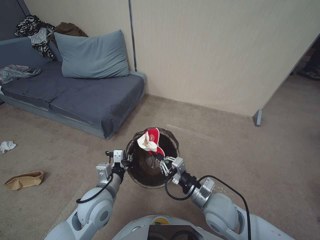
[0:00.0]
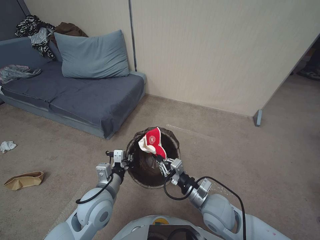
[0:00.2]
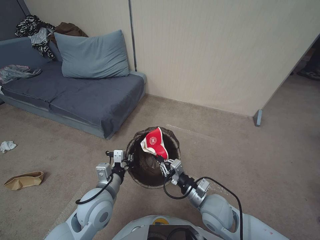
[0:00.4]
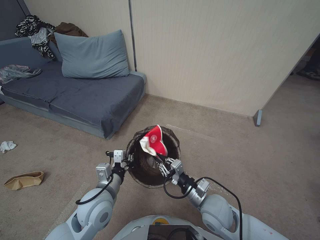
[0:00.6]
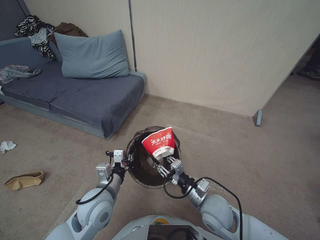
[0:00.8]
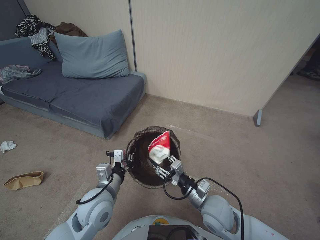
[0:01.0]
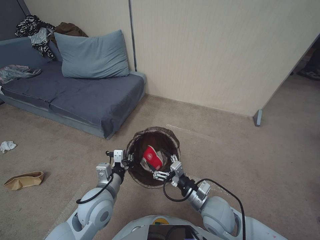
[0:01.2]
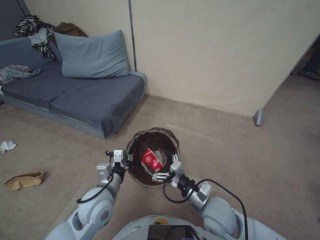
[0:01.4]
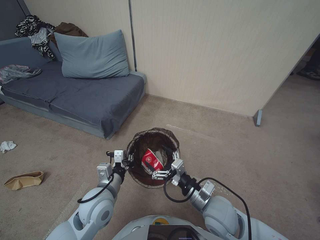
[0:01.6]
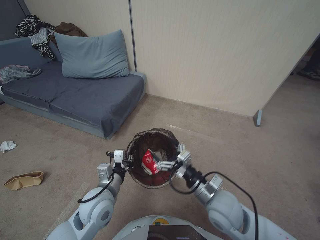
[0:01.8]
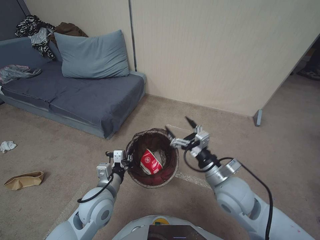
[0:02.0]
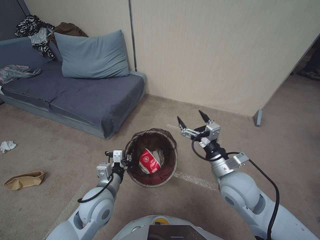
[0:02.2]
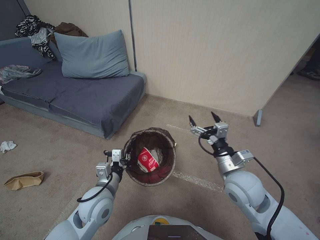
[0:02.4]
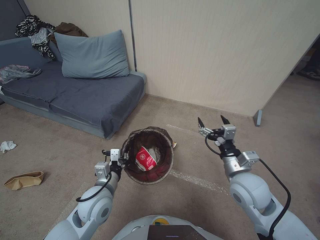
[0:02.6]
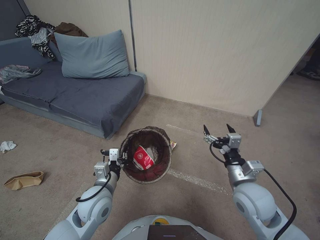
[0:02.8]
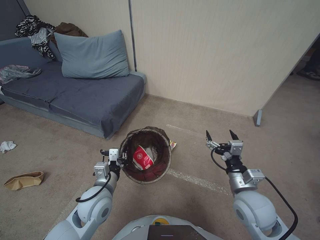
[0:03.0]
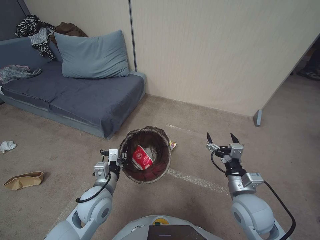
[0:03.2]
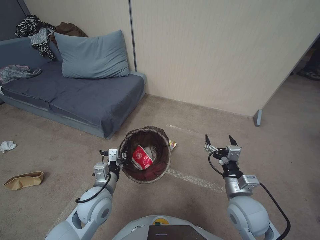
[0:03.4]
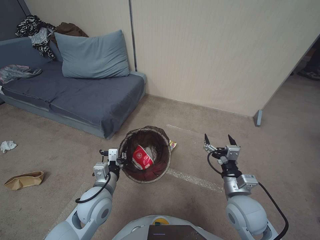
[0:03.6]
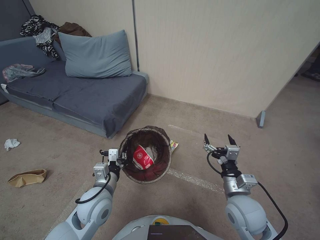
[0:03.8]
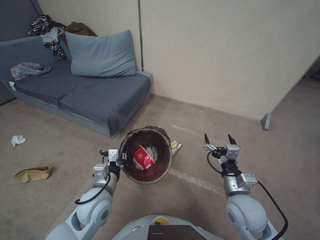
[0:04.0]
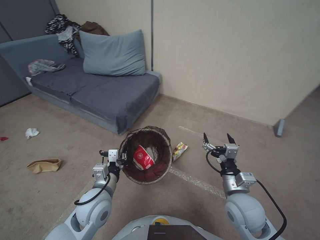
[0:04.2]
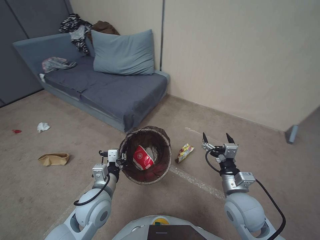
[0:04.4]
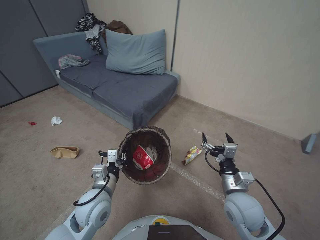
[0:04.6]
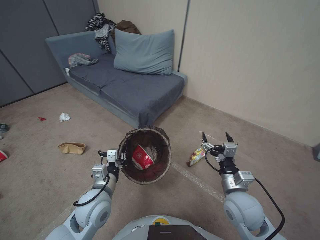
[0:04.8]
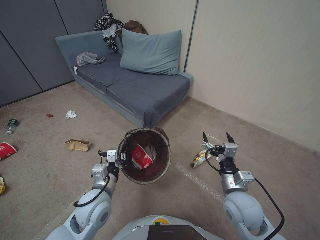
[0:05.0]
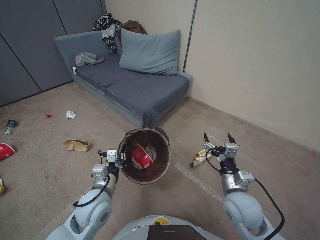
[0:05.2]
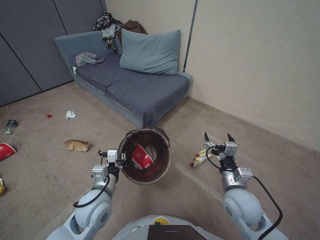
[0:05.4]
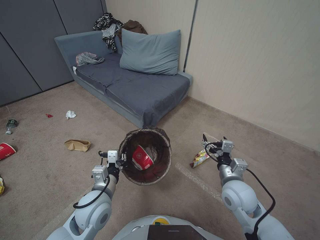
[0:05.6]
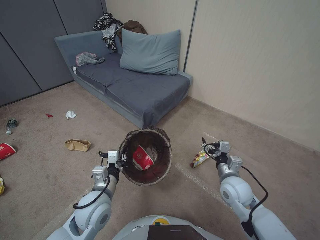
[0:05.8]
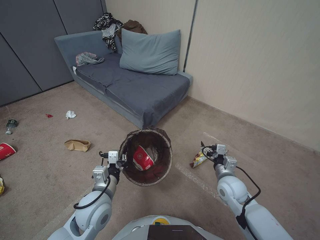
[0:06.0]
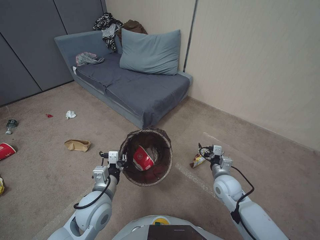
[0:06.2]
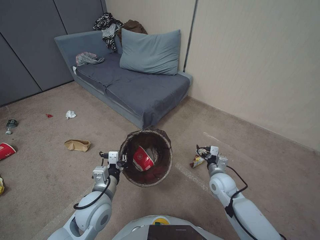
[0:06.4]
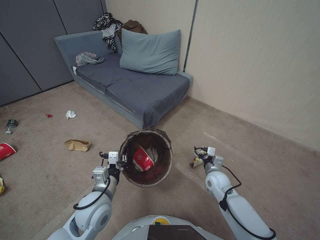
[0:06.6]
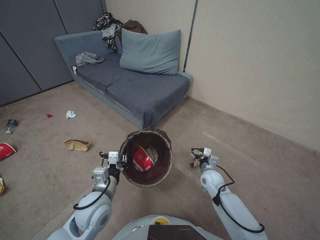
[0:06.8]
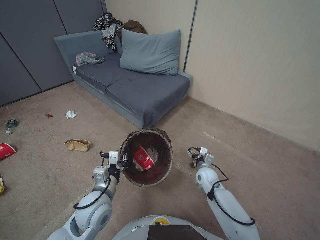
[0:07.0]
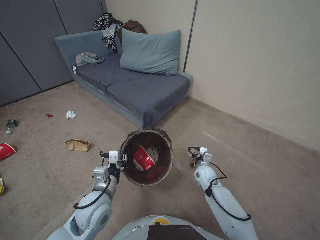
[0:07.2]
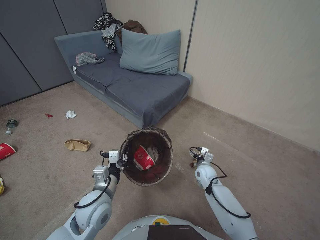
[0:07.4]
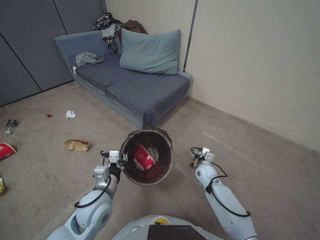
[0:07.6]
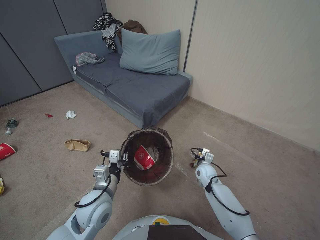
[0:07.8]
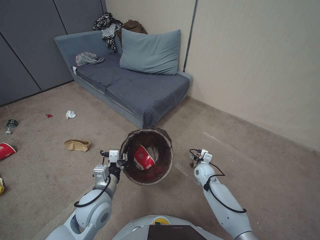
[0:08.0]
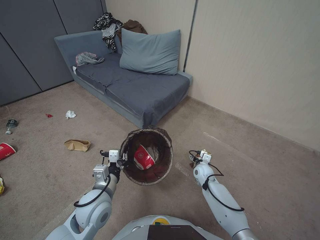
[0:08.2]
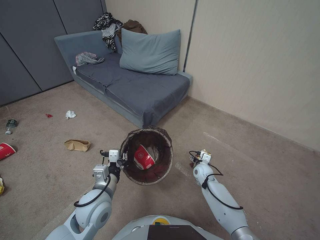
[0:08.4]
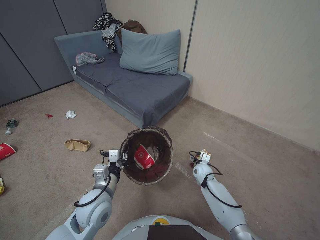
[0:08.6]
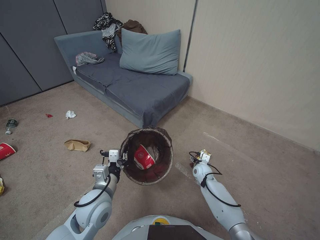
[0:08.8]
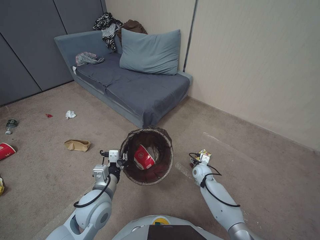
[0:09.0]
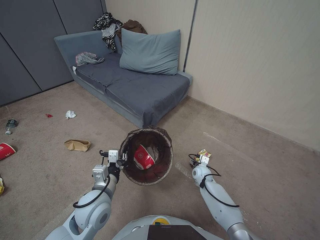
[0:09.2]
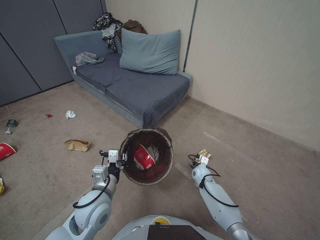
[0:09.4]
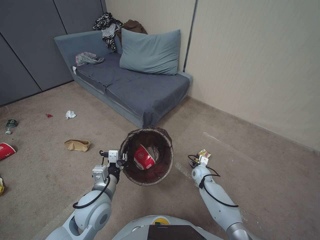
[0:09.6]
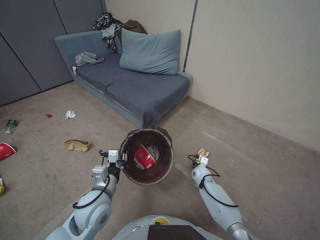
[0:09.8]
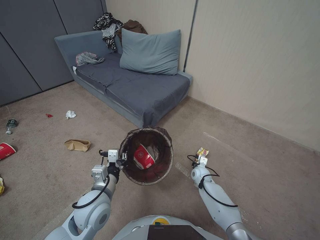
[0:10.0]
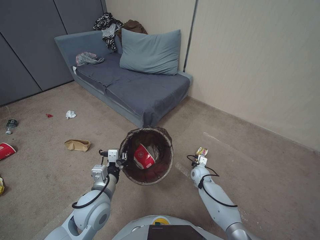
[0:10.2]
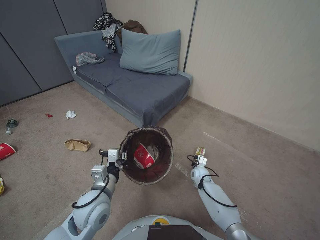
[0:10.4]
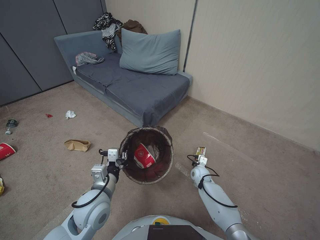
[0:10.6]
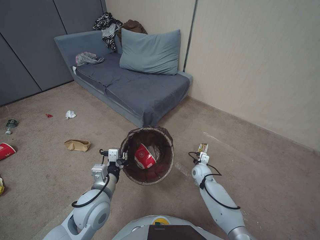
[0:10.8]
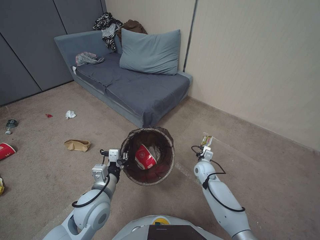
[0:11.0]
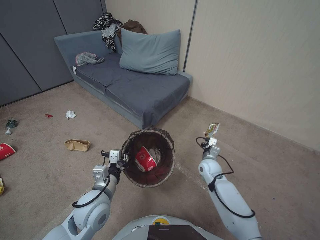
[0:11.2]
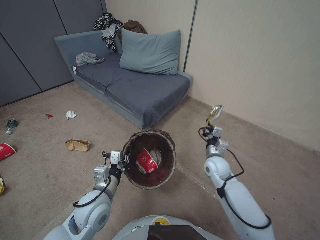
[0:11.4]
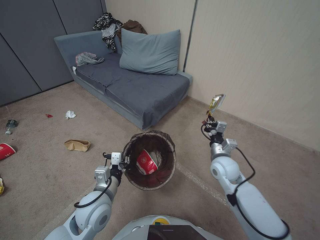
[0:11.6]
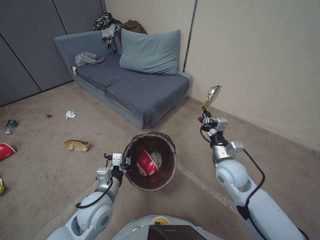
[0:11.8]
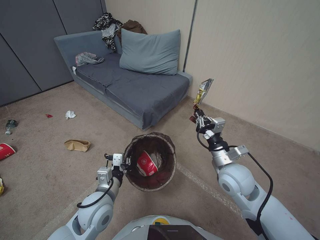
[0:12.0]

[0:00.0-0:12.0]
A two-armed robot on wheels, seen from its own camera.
Task of the whole recording: Pick up the trash bin, then pick up the garbage from the floor and place it into the trash bin.
0:00.0 to 0:01.6: The right gripper opens.
0:01.6 to 0:03.0: The right gripper shifts approximately 10 cm to the right and upward.
0:04.4 to 0:06.0: The right gripper is displaced forward by about 5 cm.
0:06.0 to 0:07.6: The right gripper shifts approximately 15 cm downward and forward.
0:07.6 to 0:09.0: The right gripper moves about 5 cm.
0:09.0 to 0:10.4: The right gripper closes.
0:10.4 to 0:12.0: The right gripper moves upward, roughly 25 cm.

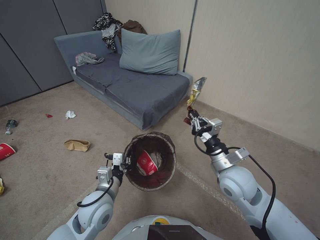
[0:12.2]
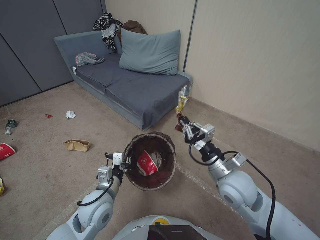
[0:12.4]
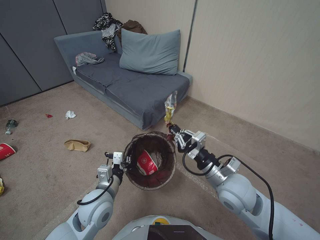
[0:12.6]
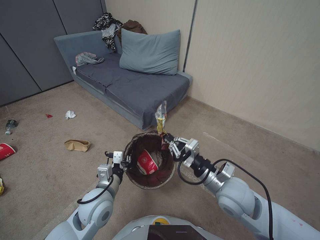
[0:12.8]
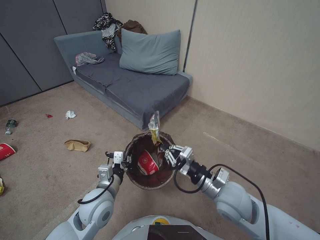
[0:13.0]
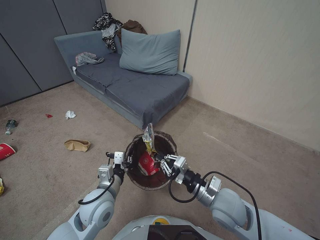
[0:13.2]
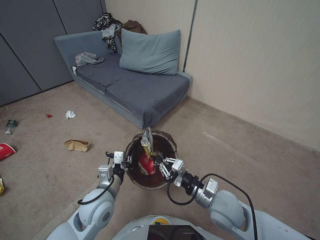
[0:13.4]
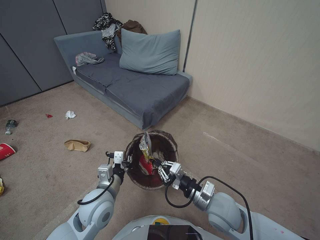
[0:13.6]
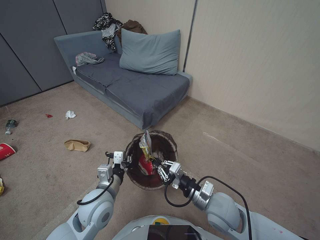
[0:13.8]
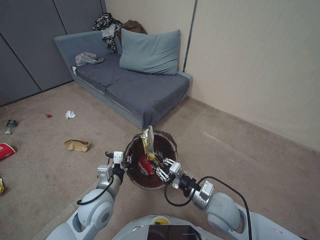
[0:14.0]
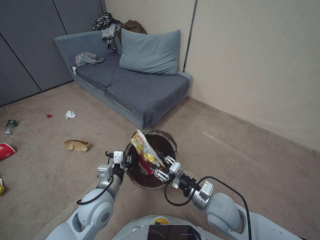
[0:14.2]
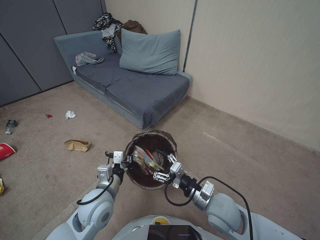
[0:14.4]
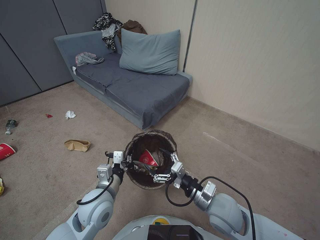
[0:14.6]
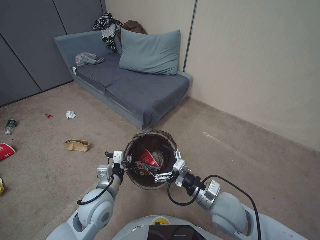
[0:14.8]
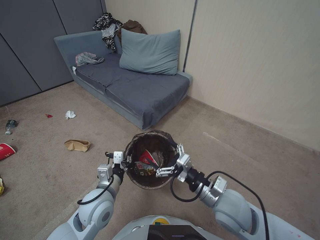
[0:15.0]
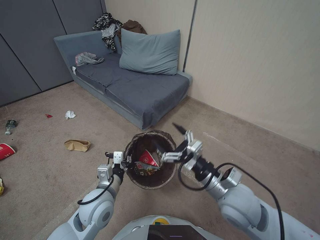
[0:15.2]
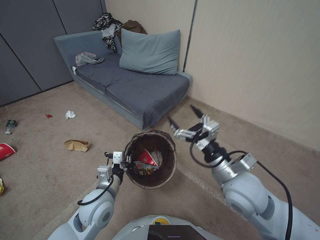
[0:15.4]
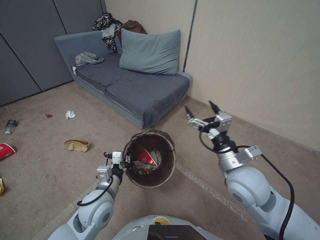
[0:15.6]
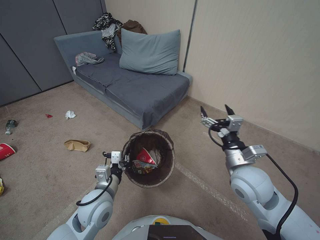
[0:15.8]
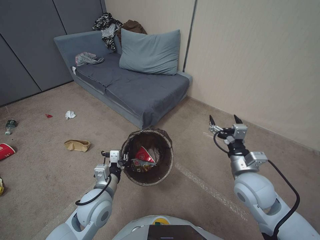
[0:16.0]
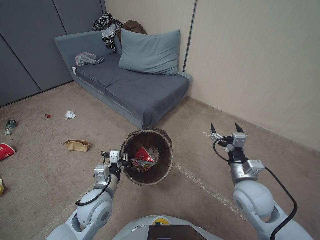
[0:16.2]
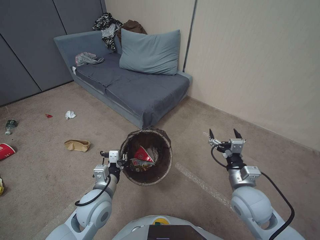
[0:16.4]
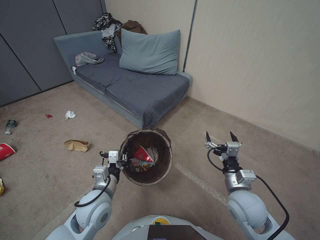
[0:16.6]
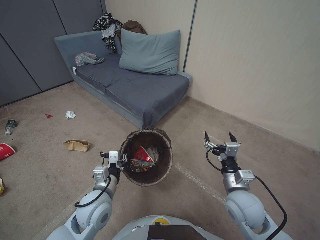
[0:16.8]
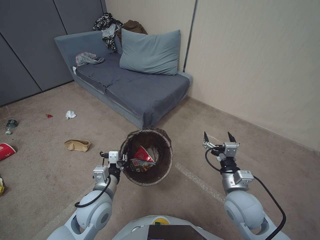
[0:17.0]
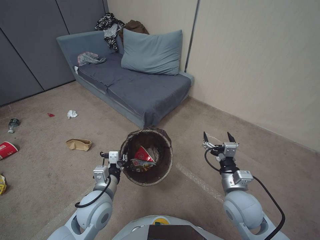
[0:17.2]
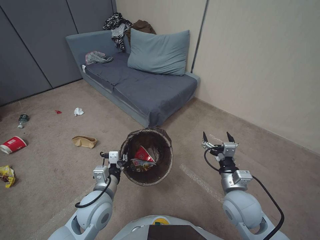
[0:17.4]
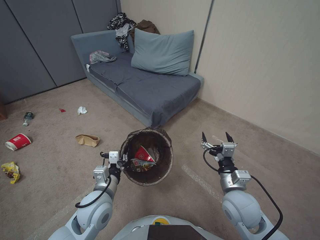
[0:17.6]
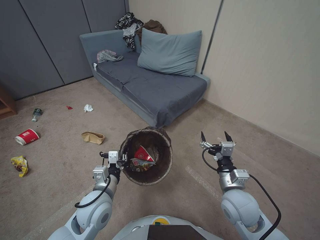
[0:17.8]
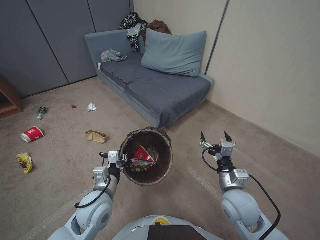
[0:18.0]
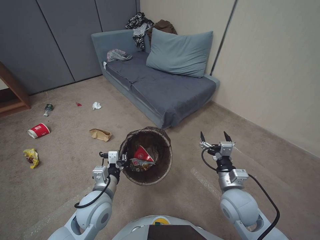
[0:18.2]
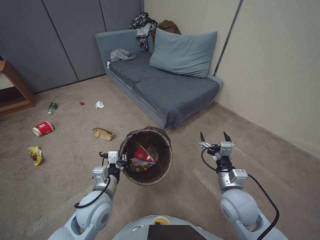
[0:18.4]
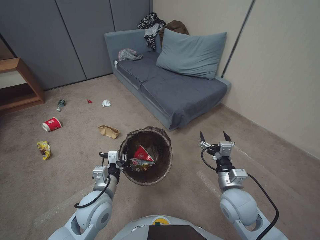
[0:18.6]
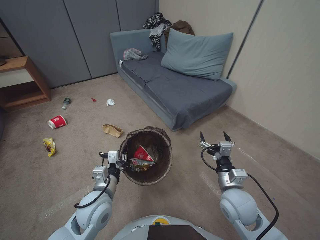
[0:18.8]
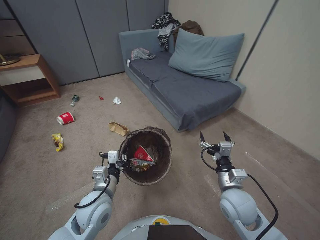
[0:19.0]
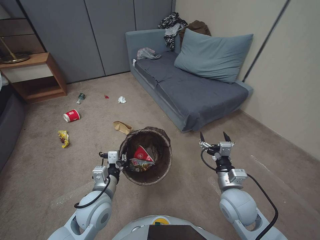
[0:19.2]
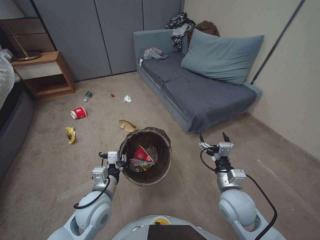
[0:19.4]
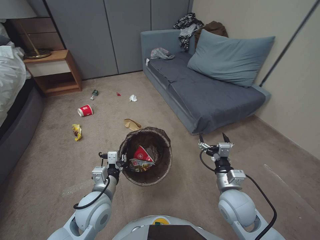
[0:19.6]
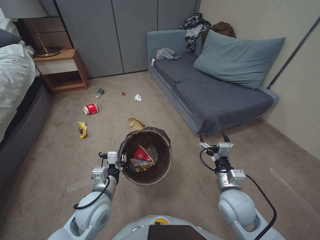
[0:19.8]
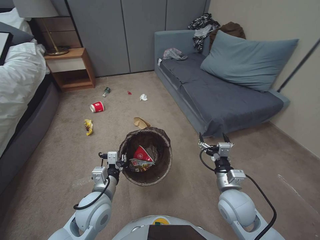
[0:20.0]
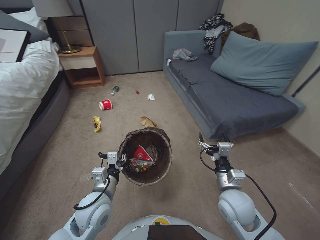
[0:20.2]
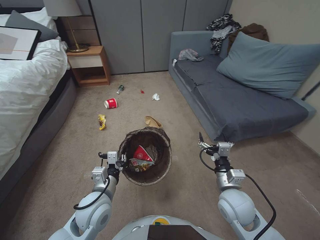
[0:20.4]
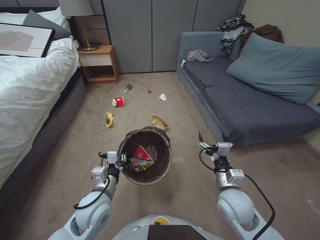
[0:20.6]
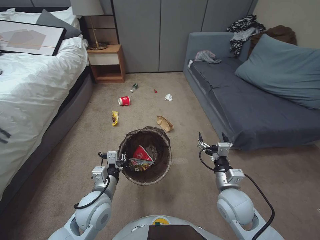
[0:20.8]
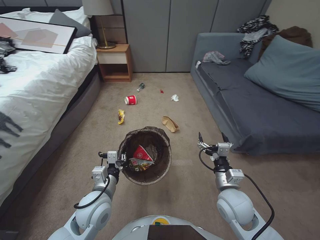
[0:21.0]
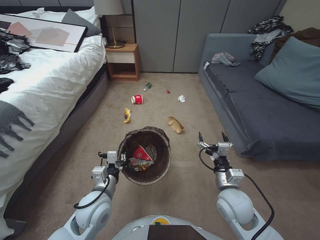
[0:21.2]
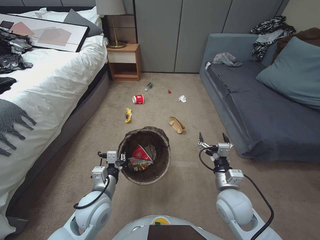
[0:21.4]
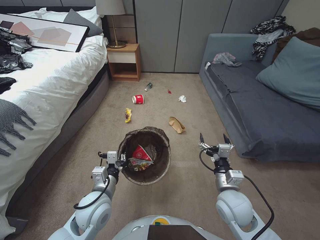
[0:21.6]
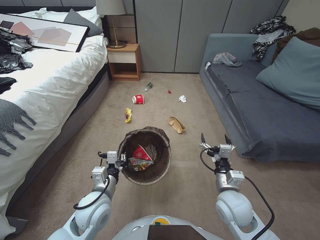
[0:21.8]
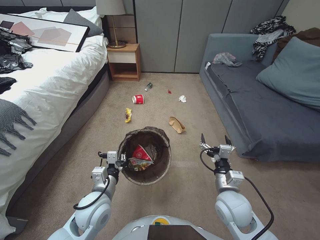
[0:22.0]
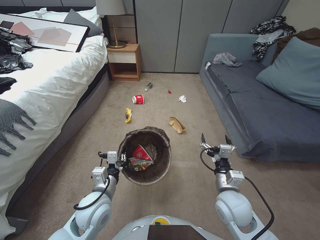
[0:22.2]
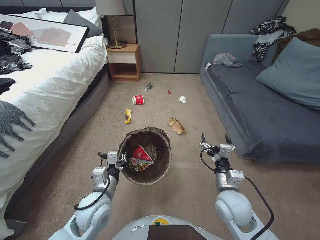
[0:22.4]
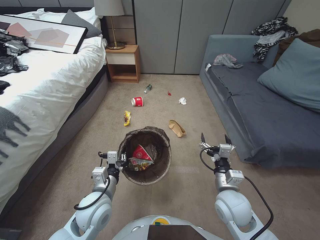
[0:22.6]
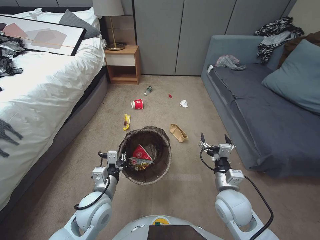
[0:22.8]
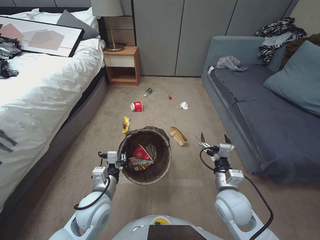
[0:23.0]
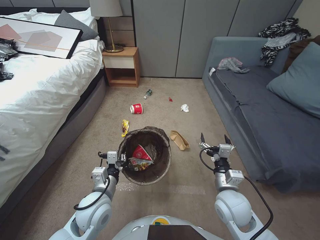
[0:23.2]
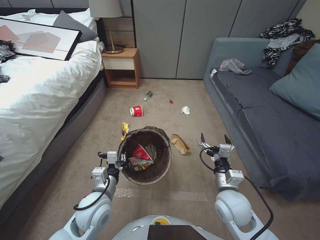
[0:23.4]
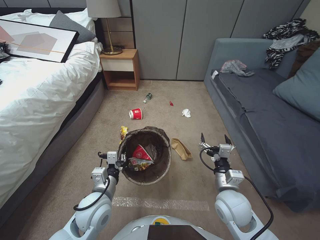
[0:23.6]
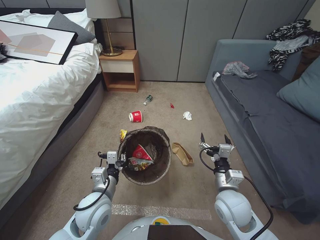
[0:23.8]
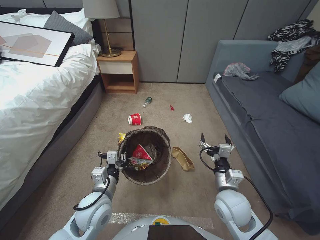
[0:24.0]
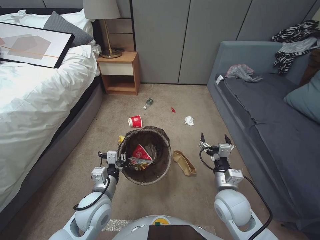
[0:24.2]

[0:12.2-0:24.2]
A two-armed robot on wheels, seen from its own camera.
Task of the whole recording: Pick up the trash bin, then pick up the garbage from the floor and place it into the trash bin.
0:12.2 to 0:13.8: The right gripper travels backward and downward by roughly 10 cm.
0:13.8 to 0:15.2: The right gripper heads upward, covering some 5 cm, and opens its fingers.
0:15.2 to 0:16.6: The right gripper moves to the right and downward, approximately 10 cm.
0:16.6 to 0:18.2: The grippers stay close to where they were, moving slightly.
0:21.2 to 0:22.6: The two grippers keep their place.
